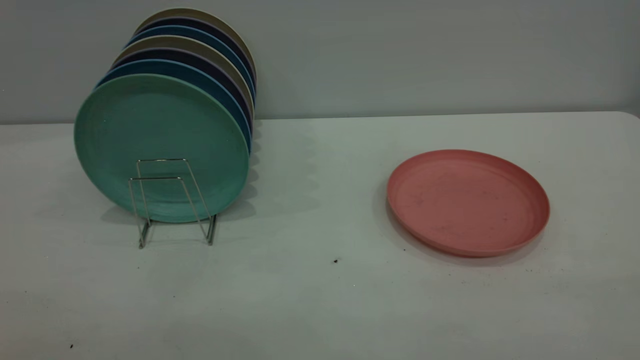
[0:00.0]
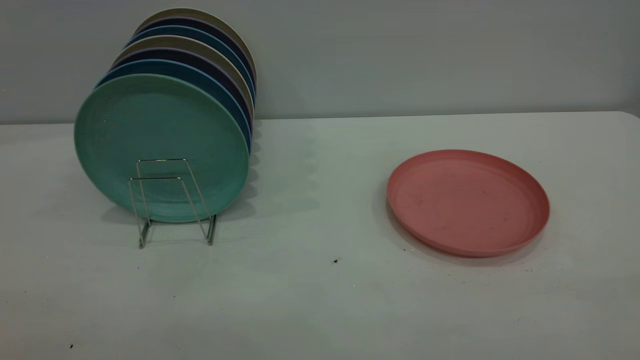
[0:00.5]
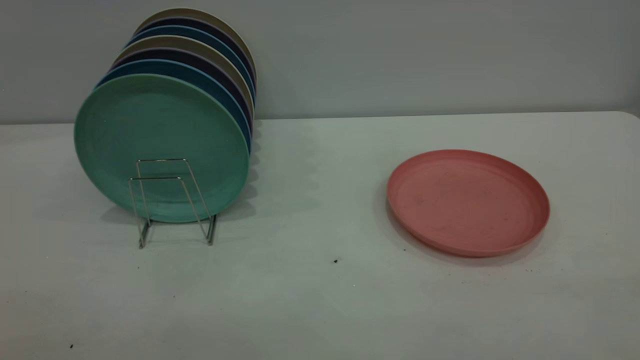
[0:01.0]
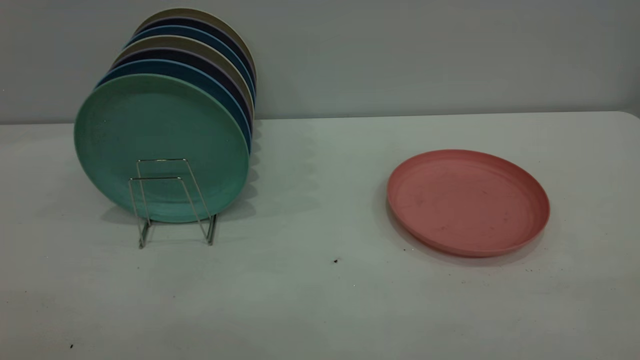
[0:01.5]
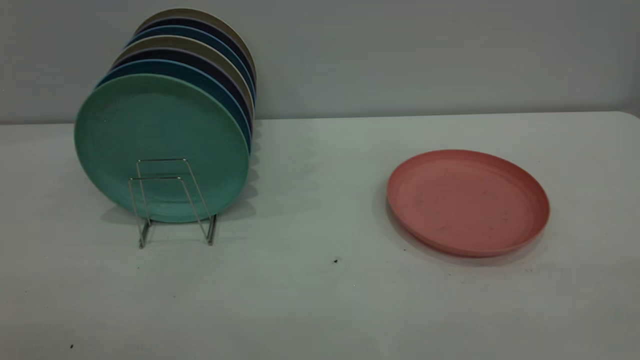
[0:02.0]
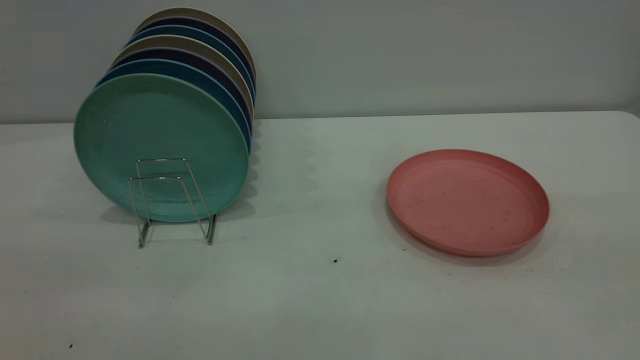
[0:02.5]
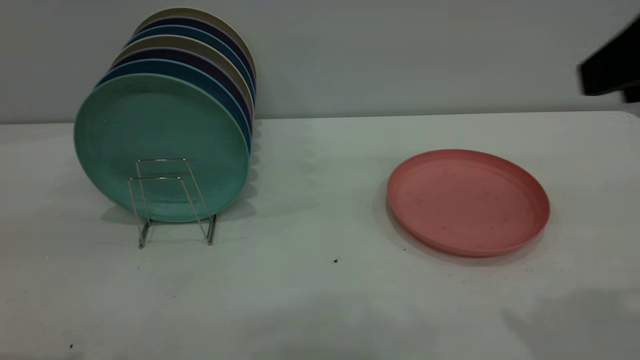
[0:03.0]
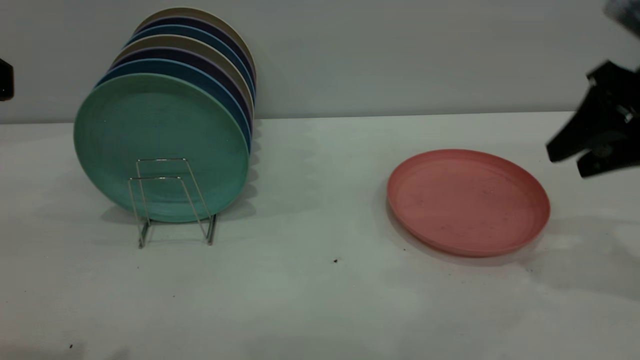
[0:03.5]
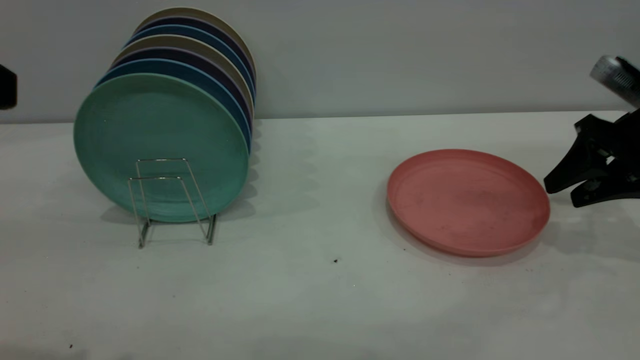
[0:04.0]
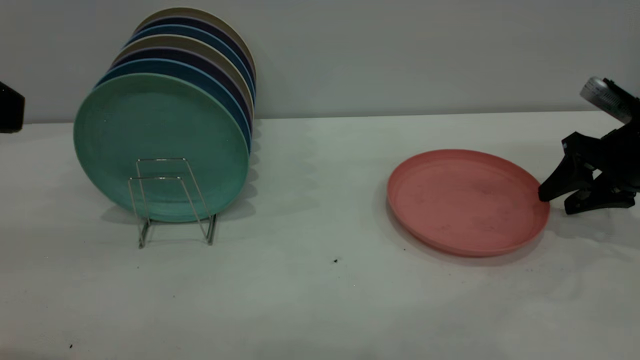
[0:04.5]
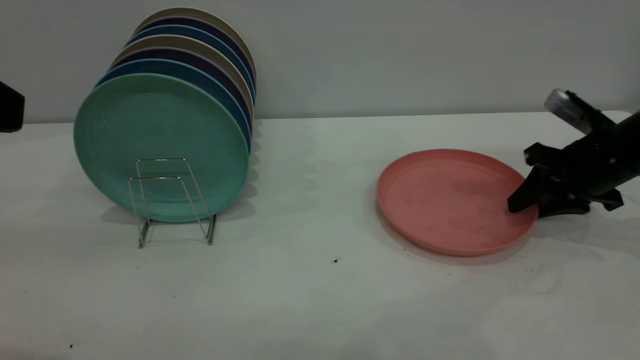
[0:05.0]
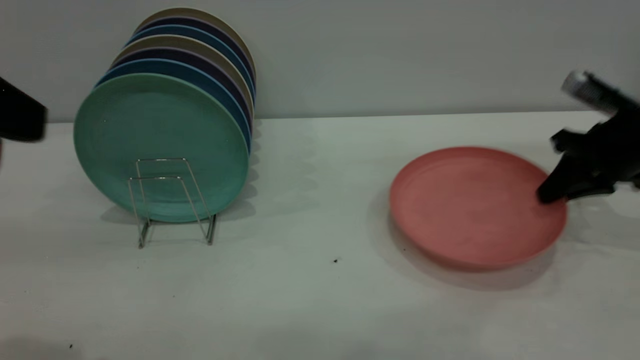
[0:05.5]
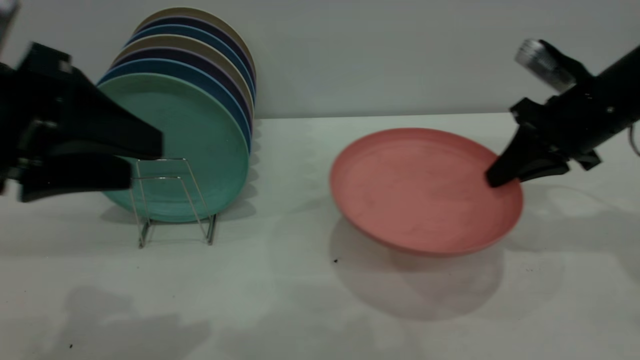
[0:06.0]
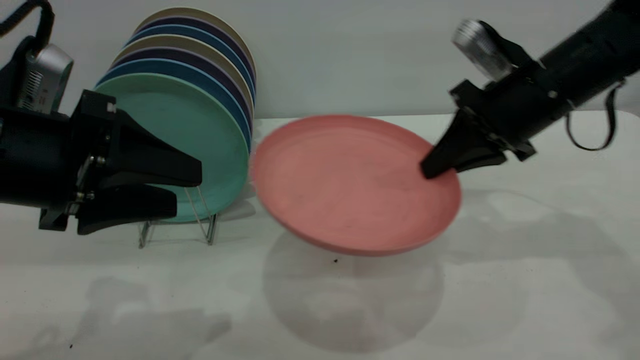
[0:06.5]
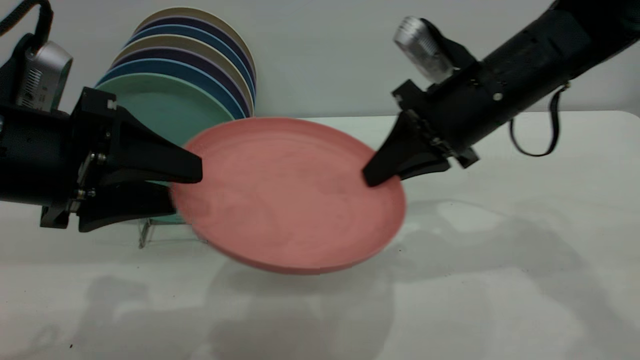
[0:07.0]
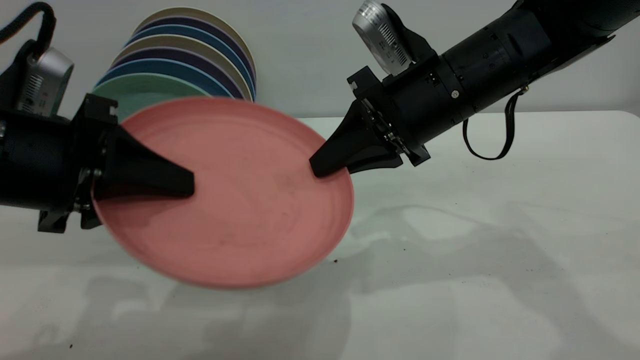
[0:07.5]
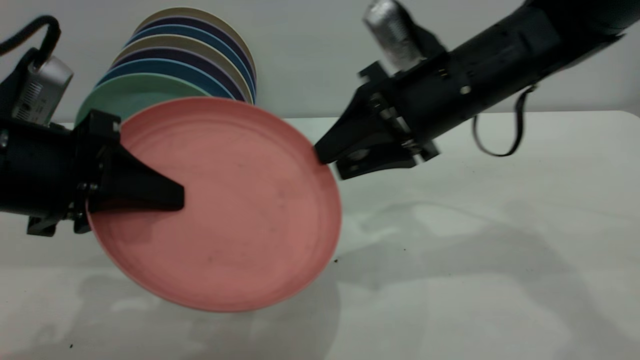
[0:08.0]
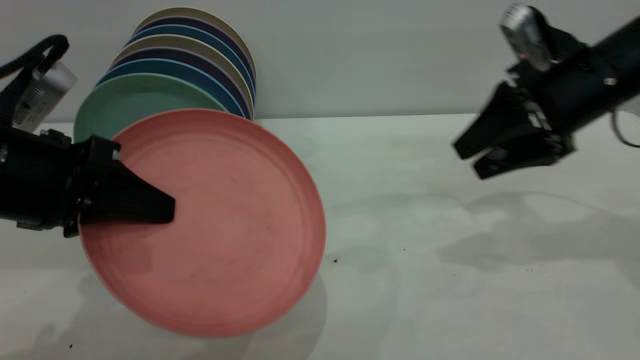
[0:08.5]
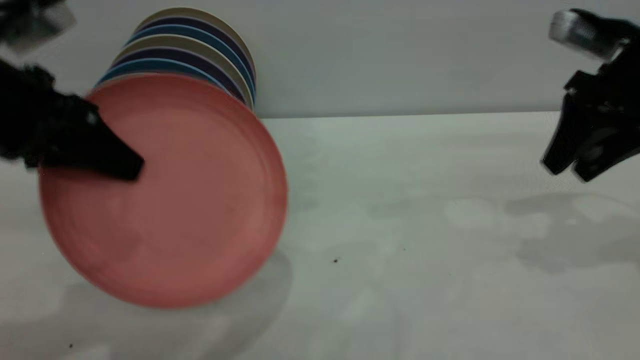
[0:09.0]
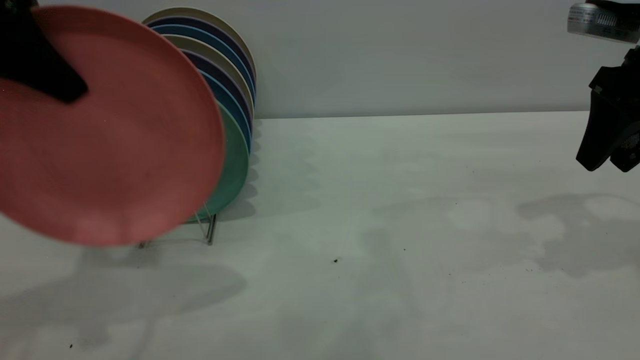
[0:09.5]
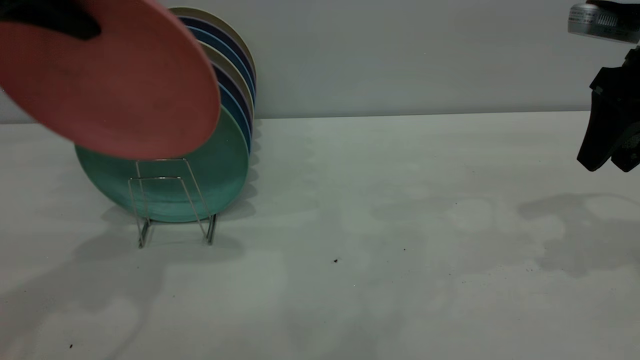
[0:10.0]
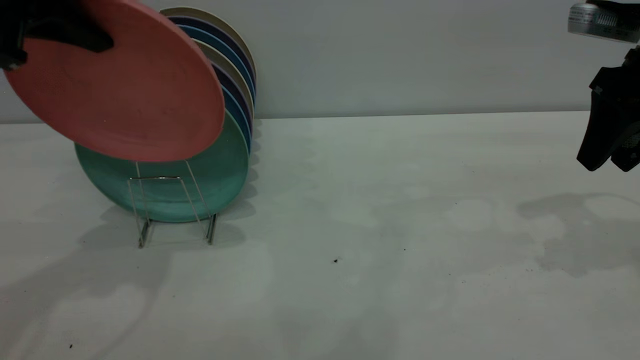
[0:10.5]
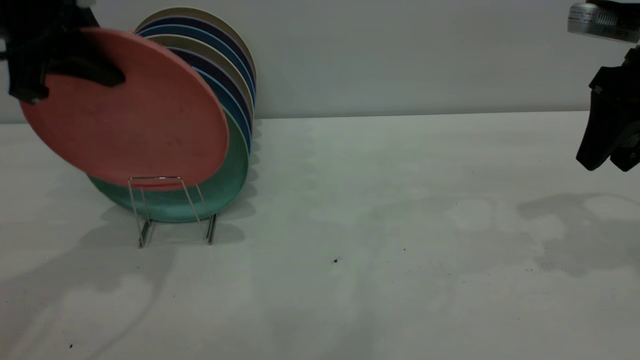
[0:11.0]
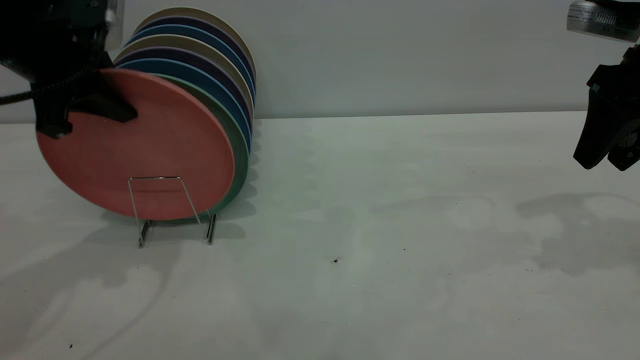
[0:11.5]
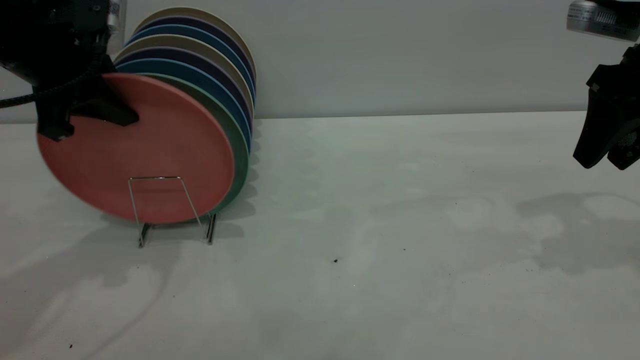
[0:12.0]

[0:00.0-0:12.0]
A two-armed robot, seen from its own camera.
Task of the whole recording: the right gripper grasp the pink plate, the right gripper pass the pink plate to the left gripper, and the left gripper place the pink plate on the plate rack.
Step, 0:00.0 to 0:05.5: Pick up the plate with the right gripper.
Step, 0:06.0 to 0:09.0: Pass the plate from the right gripper to the left gripper.
0:02.0 to 0:04.0: The right gripper heads forward and downward, covering about 50 cm, and opens its fingers.
0:04.0 to 0:06.0: The right gripper heads to the left, covering approximately 10 cm, and closes; the left gripper moves downward and forward, about 10 cm.
0:06.0 to 0:08.0: The left gripper shifts by some 5 cm, and closes. Meanwhile the right gripper shifts approximately 15 cm to the left, and opens its fingers.
0:08.0 to 0:10.0: The right gripper goes some 20 cm to the right. The left gripper heads upward and forward, covering approximately 20 cm.
0:10.0 to 0:12.0: The left gripper is displaced downward by about 10 cm.

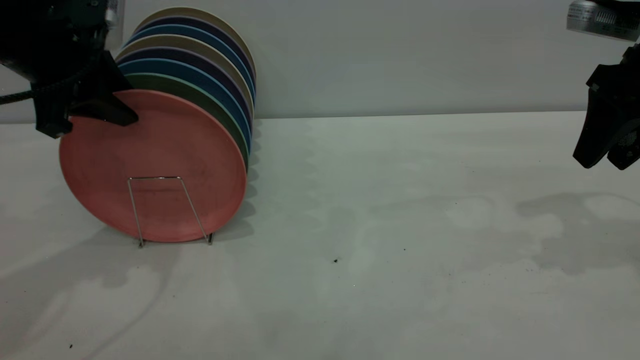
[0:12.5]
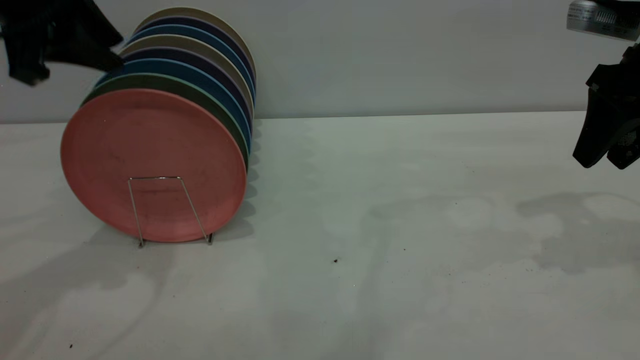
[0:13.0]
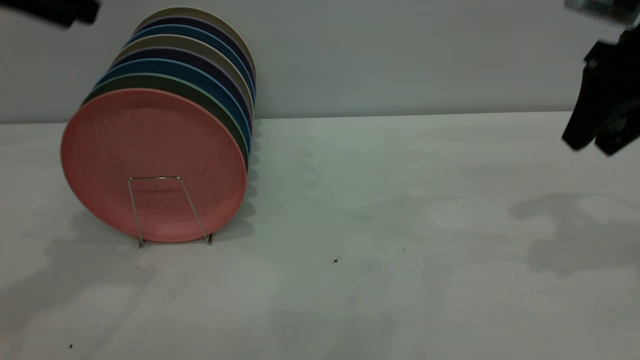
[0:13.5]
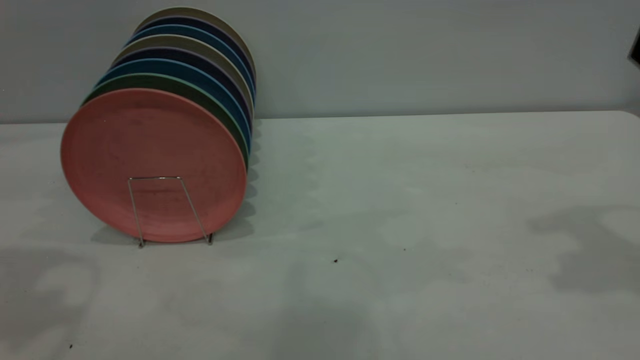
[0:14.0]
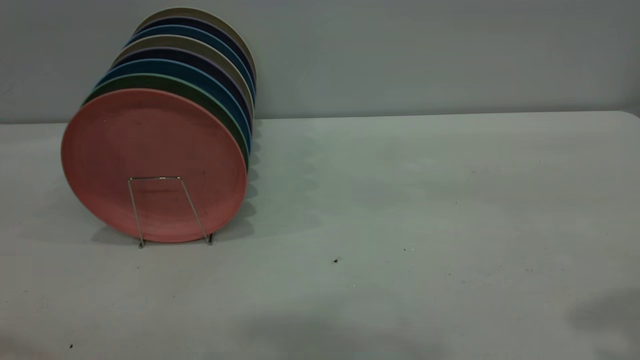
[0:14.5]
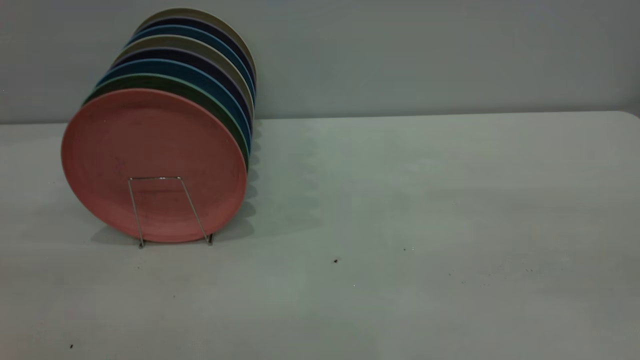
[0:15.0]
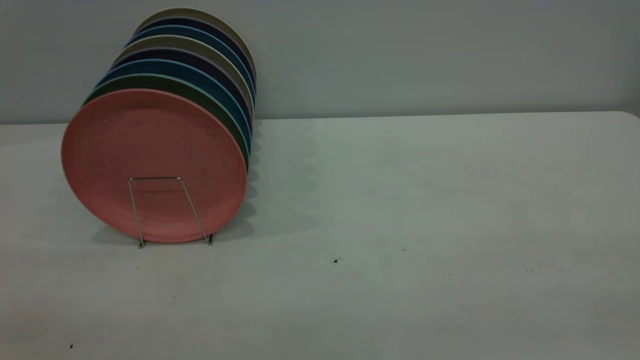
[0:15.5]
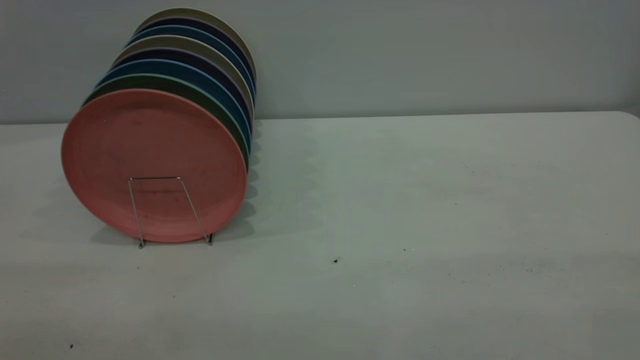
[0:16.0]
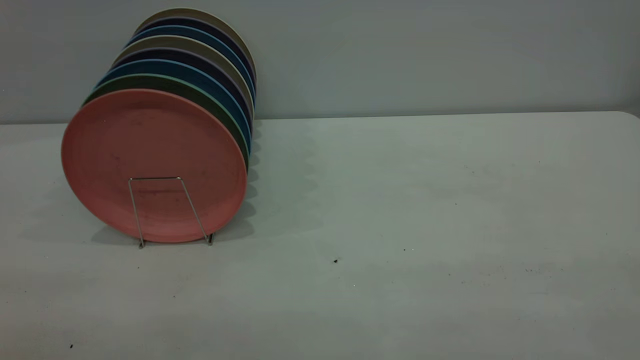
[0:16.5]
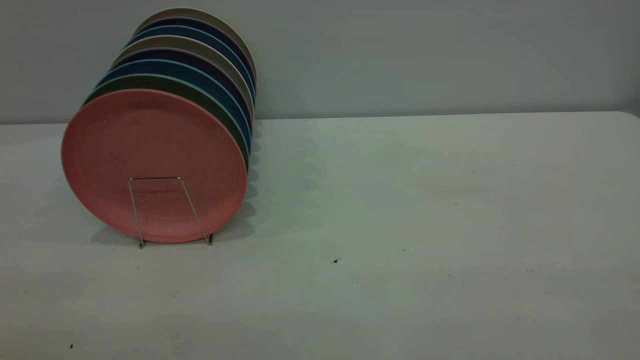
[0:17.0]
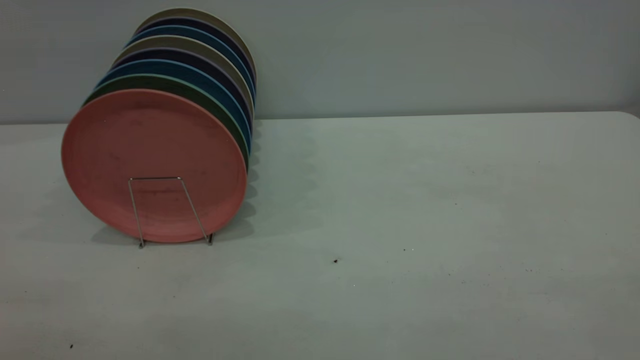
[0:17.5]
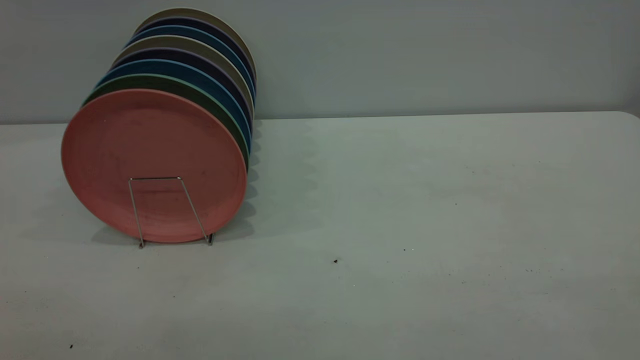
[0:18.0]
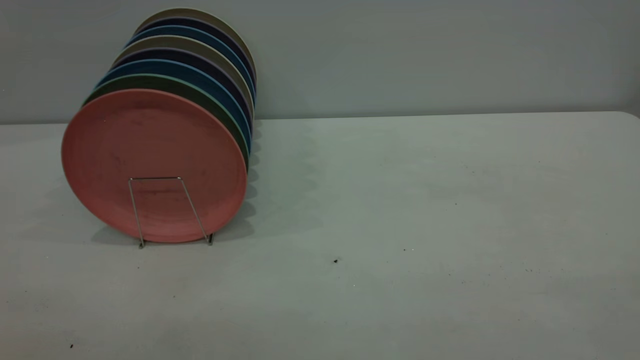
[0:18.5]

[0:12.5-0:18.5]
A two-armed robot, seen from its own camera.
Task of the whole recording: the right gripper grasp the pink plate, the right gripper pass the pink plate to the left gripper, and the left gripper place the pink plate on the plate rack.
0:12.5 to 0:14.5: The grippers both shift backward and upward by approximately 25 cm. The left gripper opens.
